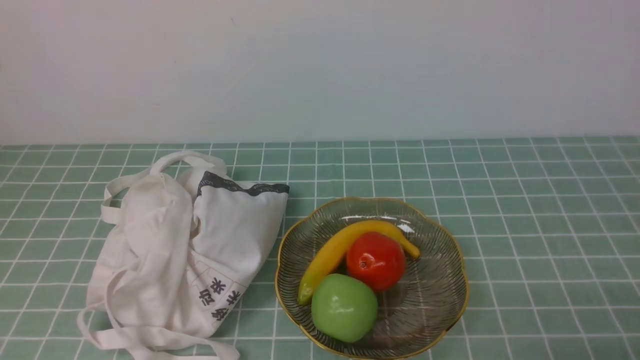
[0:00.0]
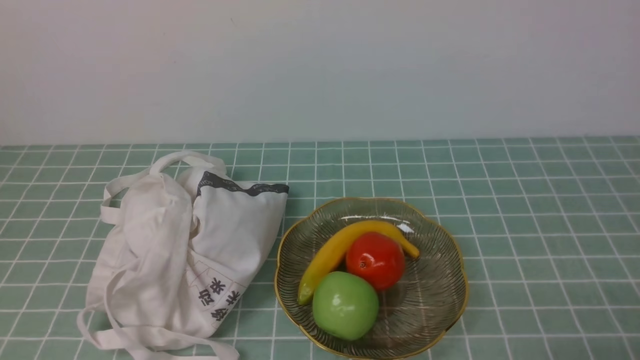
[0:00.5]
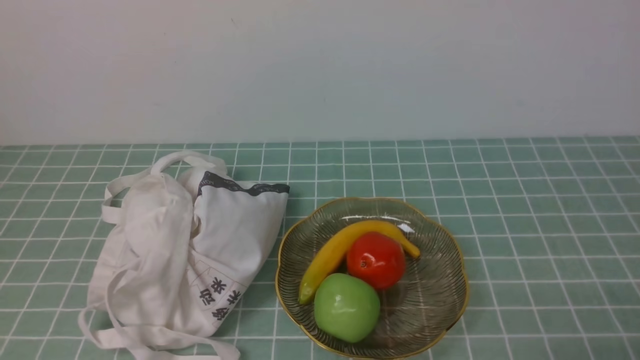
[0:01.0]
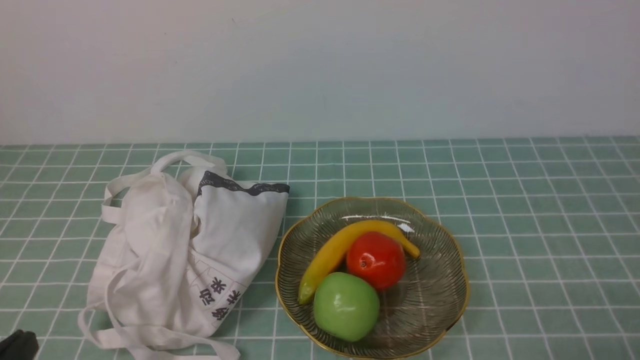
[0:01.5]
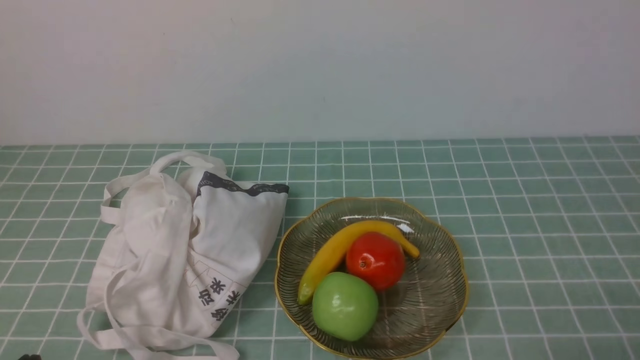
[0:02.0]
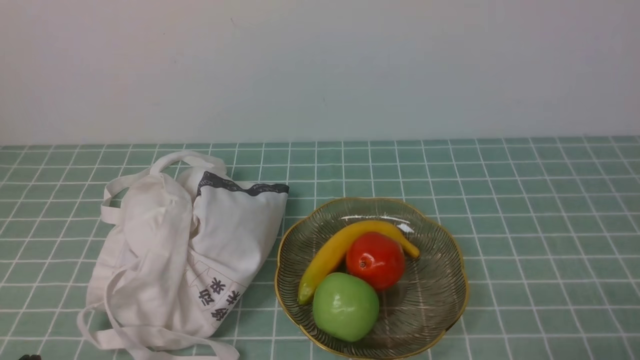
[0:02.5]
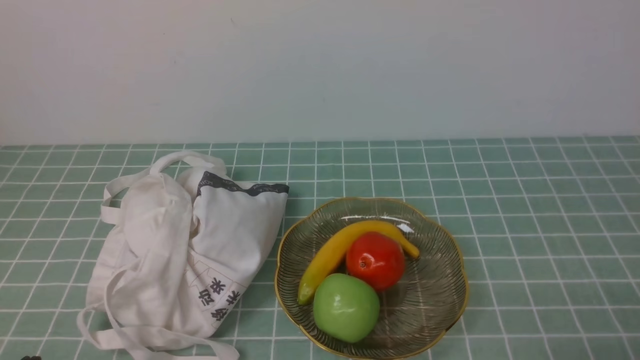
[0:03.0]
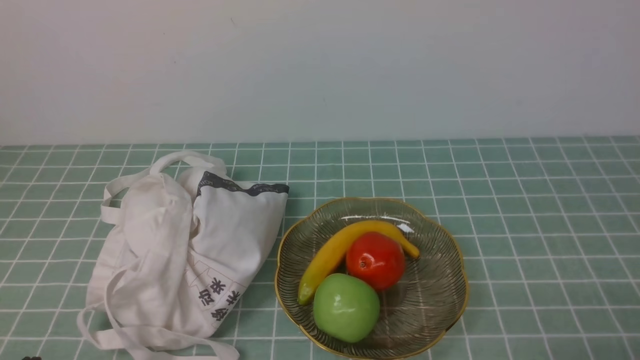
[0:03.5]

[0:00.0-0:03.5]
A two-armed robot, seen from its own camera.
0:02.0 to 0:03.5: The two grippers keep their place.
